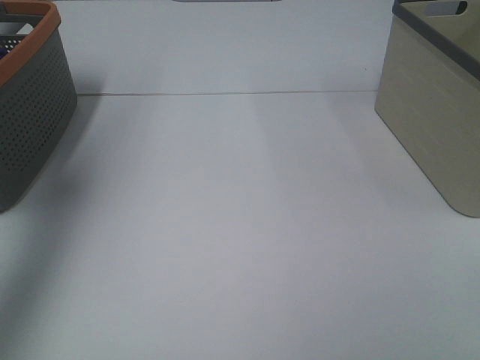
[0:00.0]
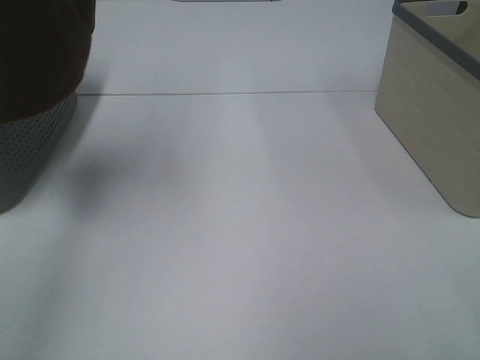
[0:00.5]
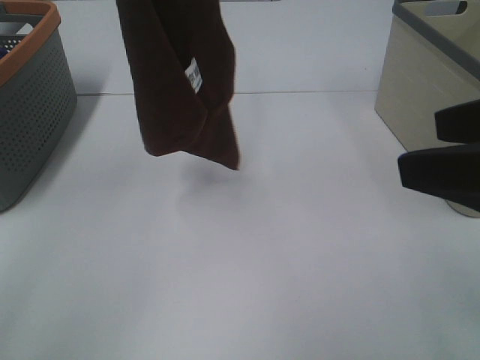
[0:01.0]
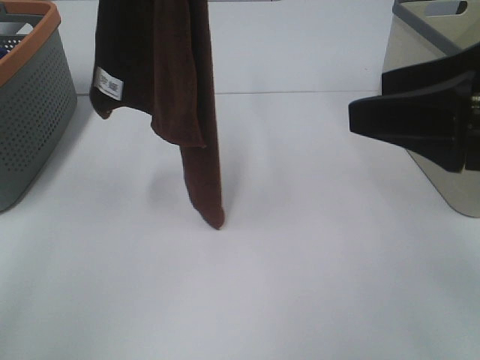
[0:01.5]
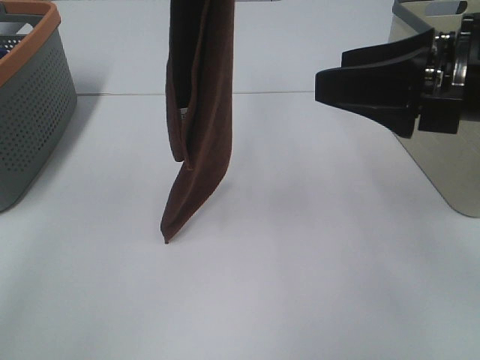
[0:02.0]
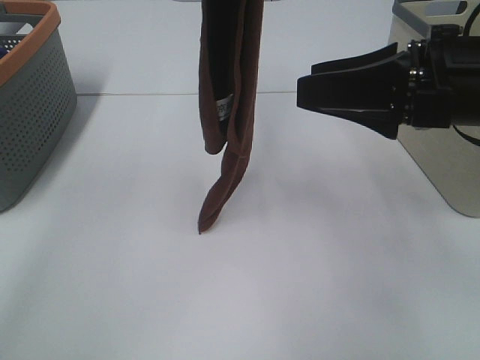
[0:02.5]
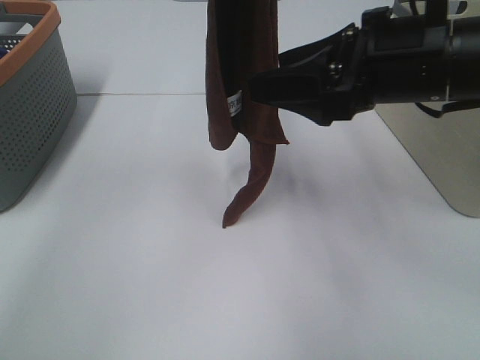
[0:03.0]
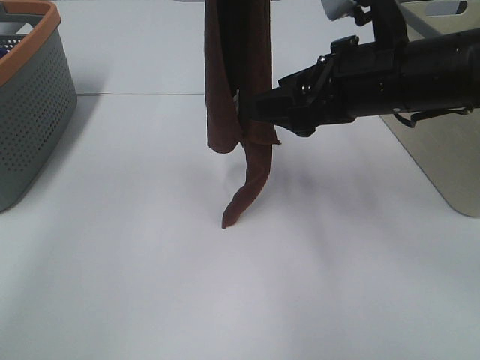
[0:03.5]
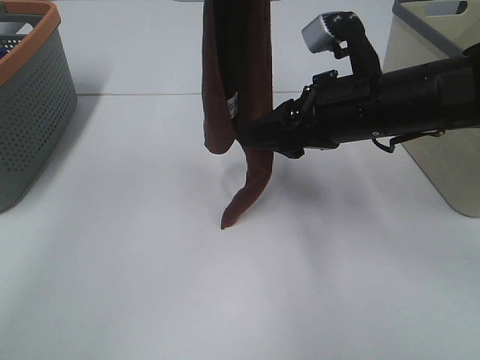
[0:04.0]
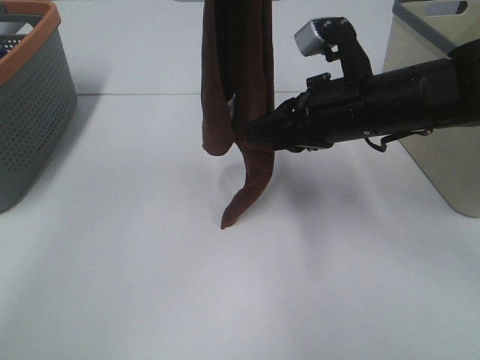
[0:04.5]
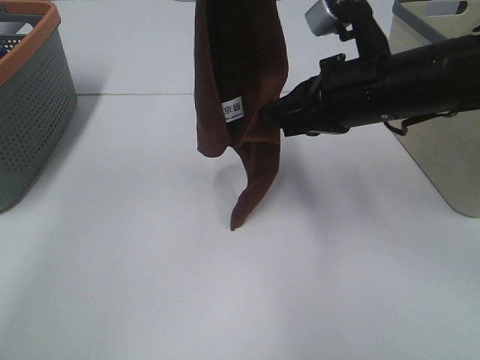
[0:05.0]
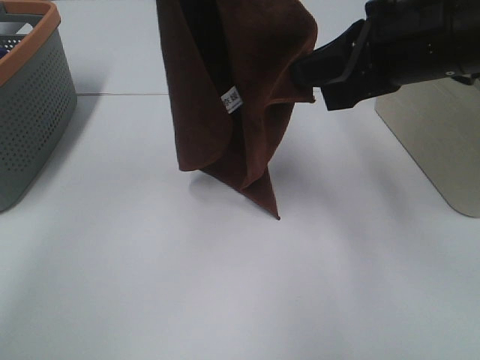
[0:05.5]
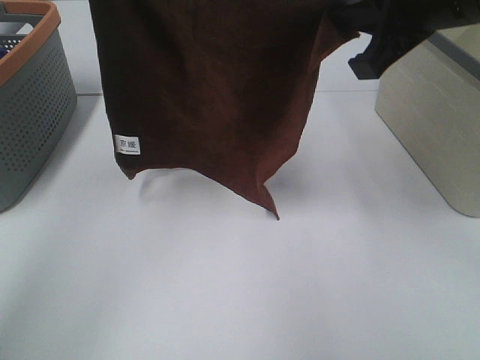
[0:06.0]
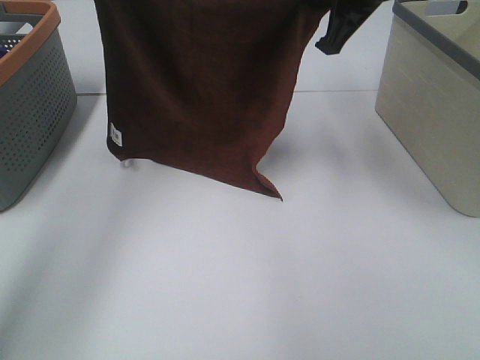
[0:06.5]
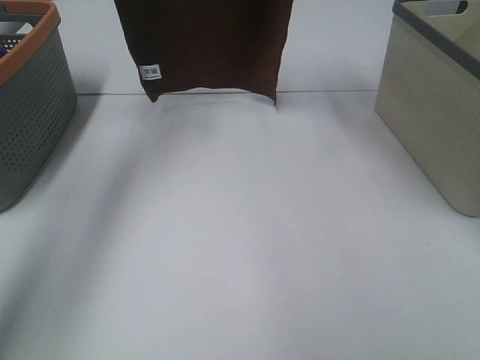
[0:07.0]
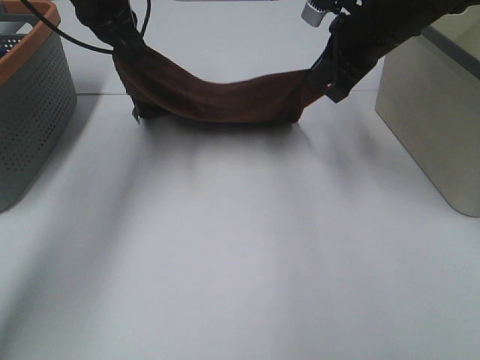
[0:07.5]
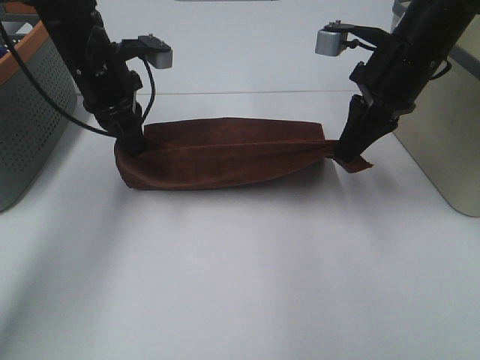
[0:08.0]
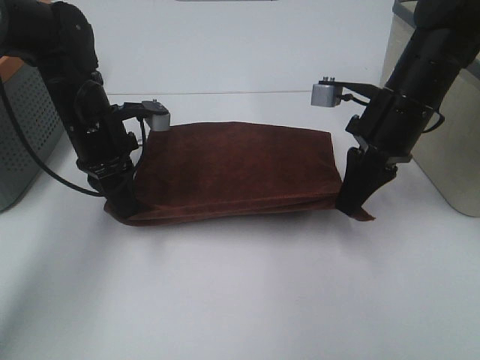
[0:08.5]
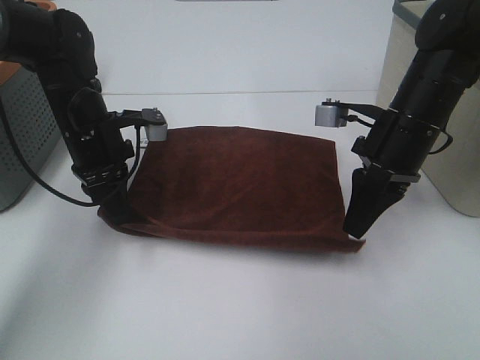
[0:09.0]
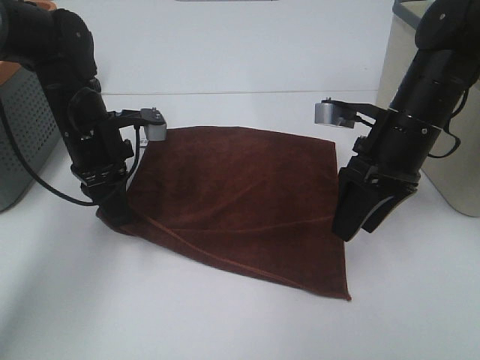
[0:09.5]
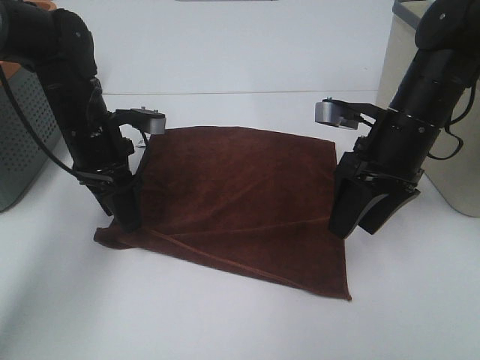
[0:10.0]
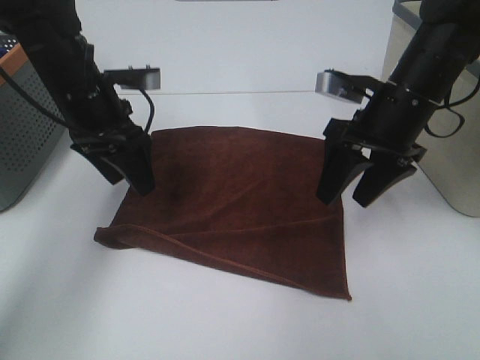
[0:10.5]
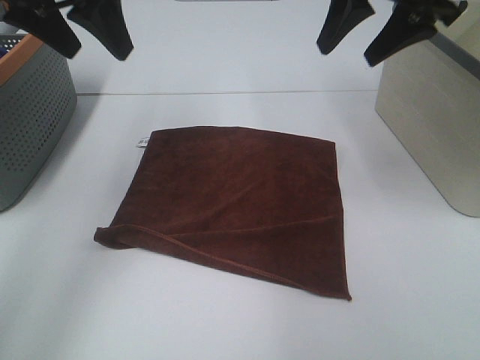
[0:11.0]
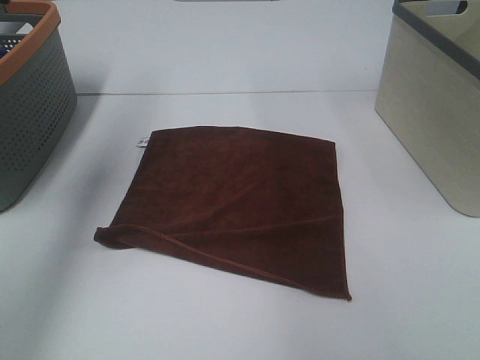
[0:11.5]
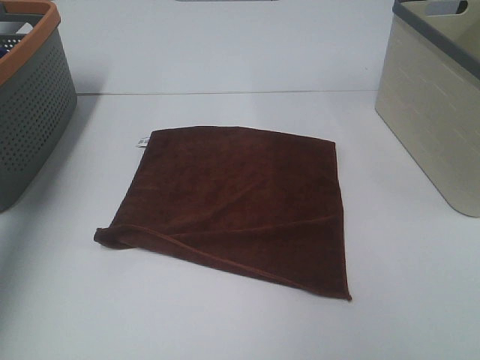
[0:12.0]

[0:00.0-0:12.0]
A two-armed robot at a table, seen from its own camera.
Task of the whole recording: Remove the towel and place it.
Step, 0:00.0 to 0:03.0: Right hand: grab a corner of the brown towel and straighten it.
Step, 0:03.5 to 0:05.0: Right hand: spread the brown towel flat on the table.
Step, 0:03.5 to 0:05.5: Left hand: spread the brown towel flat on the table.
0:00.0 to 0:02.0: The right gripper goes approximately 25 cm forward, while the left gripper moves to the right and downward, about 25 cm.
0:02.0 to 0:04.0: The right gripper is displaced forward, downward and to the left by about 10 cm.
0:04.0 to 0:06.0: The right gripper moves upward, approximately 15 cm, and closes; the left gripper goes roughly 5 cm to the left.
0:06.0 to 0:08.0: The right gripper is displaced downward and forward by some 15 cm. Meanwhile the left gripper shifts some 25 cm downward.
0:08.0 to 0:10.0: Both grippers move downward, roughly 5 cm. The left gripper opens its fingers, while the right gripper opens its fingers.
0:10.0 to 0:12.0: The right gripper shifts approximately 30 cm upward and to the right. The left gripper shifts approximately 35 cm upward and to the left.

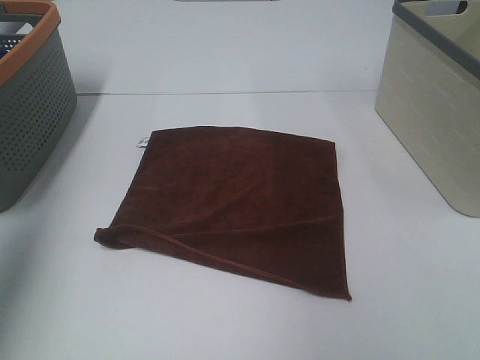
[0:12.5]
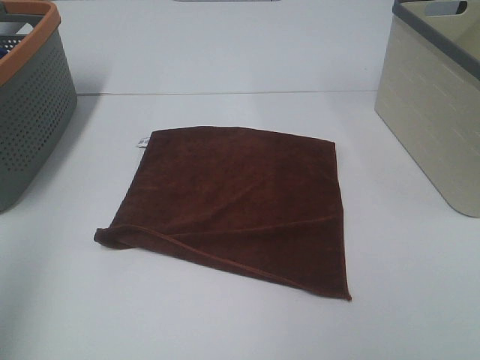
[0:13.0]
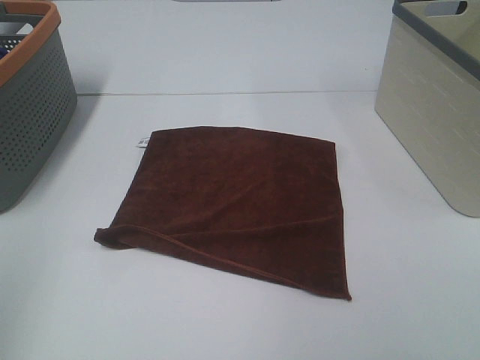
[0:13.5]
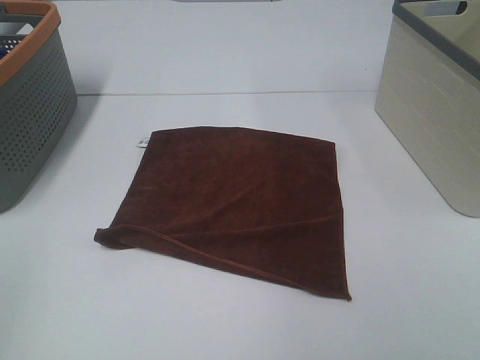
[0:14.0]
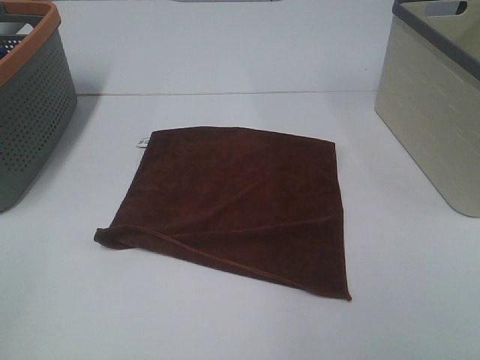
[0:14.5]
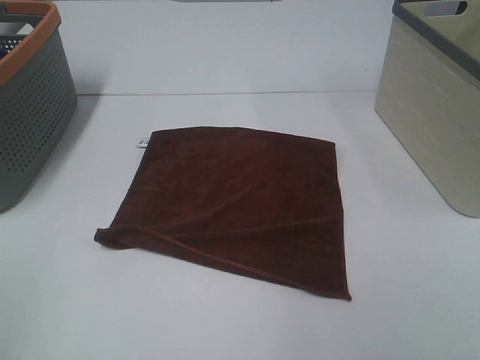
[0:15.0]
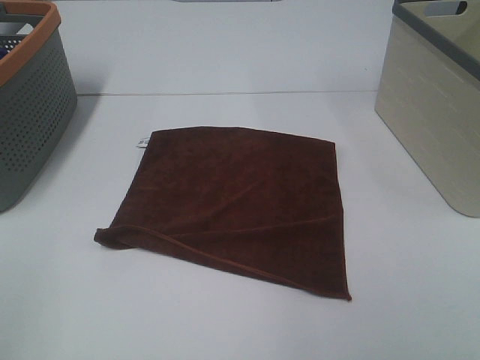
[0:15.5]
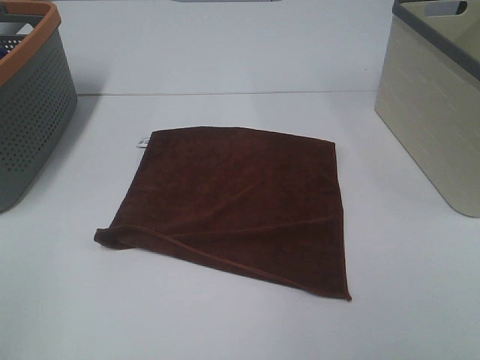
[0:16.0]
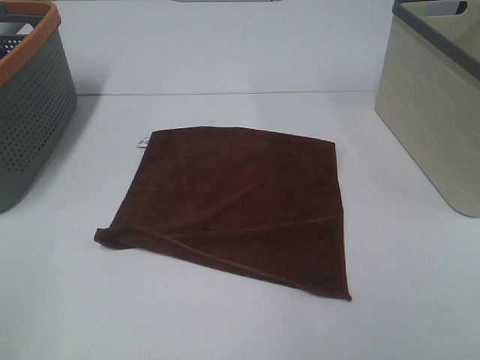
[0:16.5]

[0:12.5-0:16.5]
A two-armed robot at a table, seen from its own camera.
Task of the whole recording: Remove the towel and place it.
0:12.5 to 0:14.5: The left gripper heads backward and downward, covering about 25 cm.

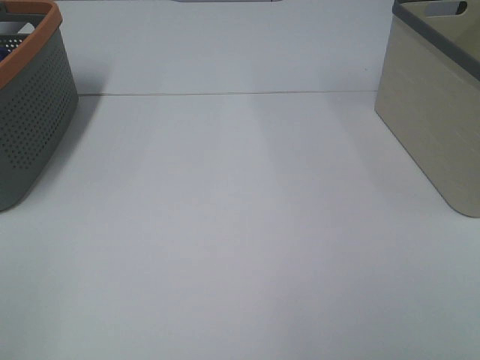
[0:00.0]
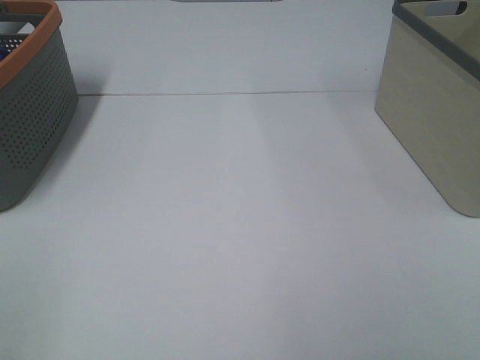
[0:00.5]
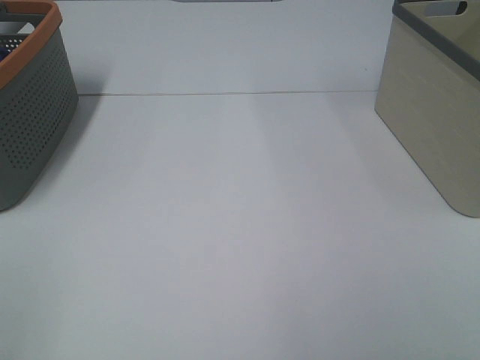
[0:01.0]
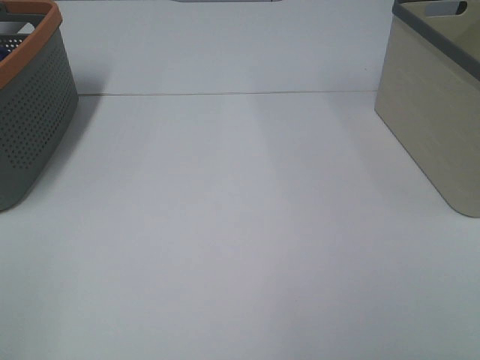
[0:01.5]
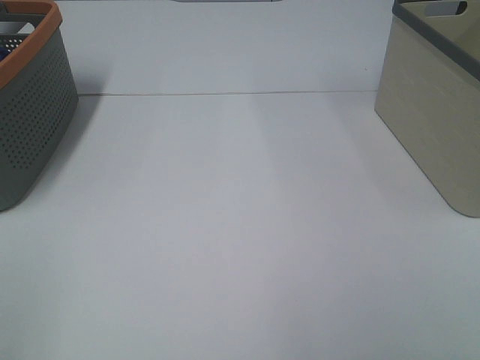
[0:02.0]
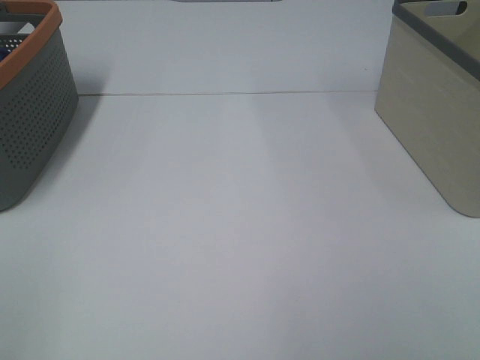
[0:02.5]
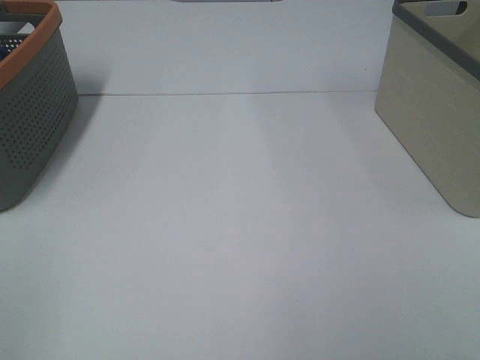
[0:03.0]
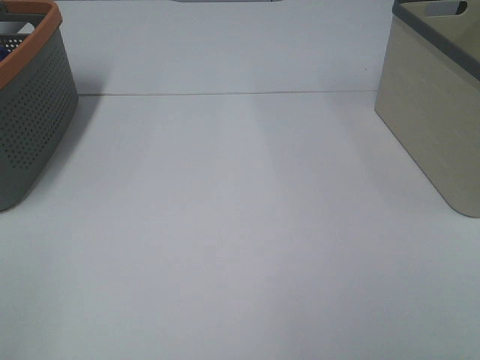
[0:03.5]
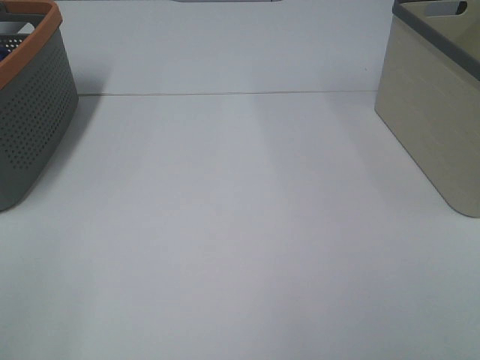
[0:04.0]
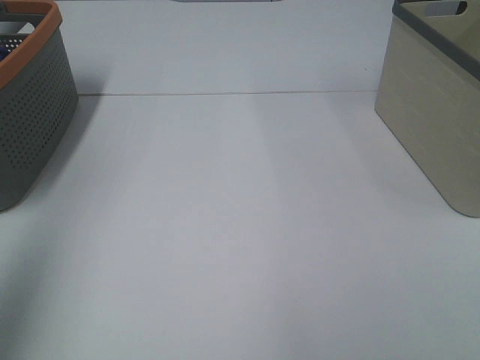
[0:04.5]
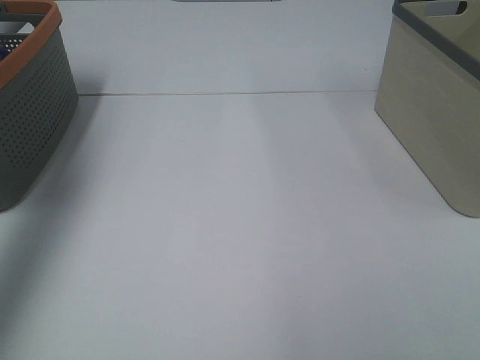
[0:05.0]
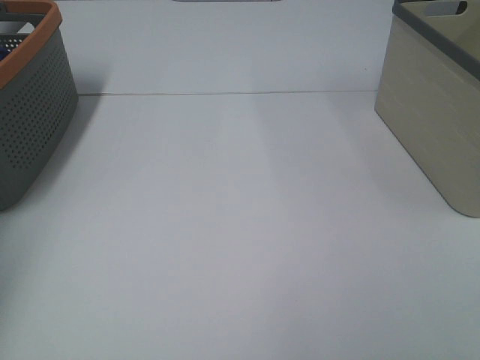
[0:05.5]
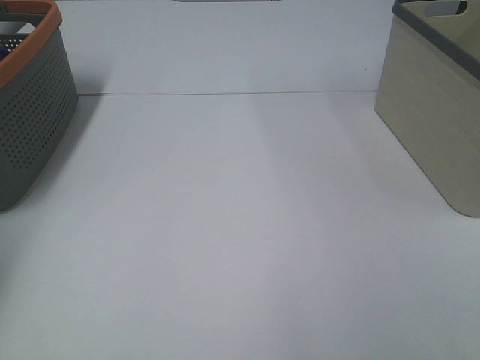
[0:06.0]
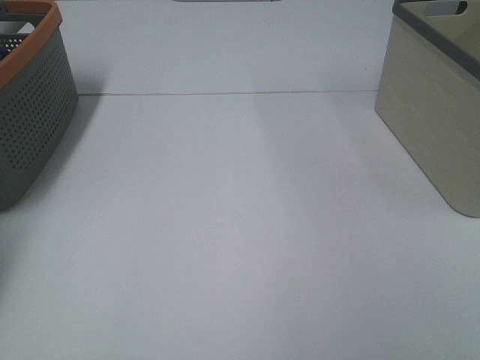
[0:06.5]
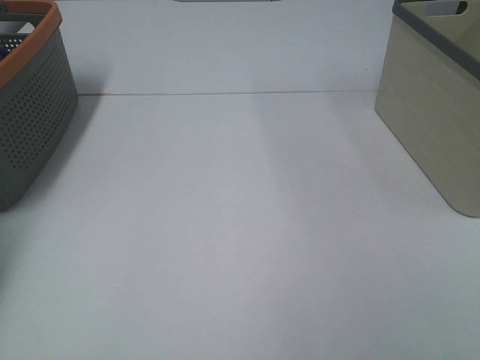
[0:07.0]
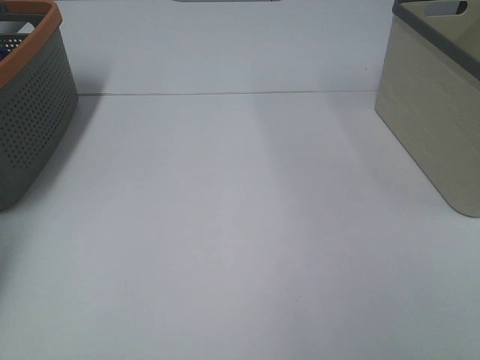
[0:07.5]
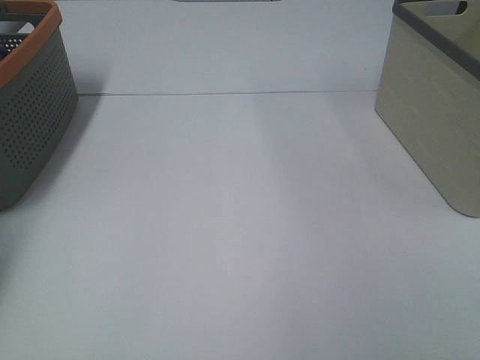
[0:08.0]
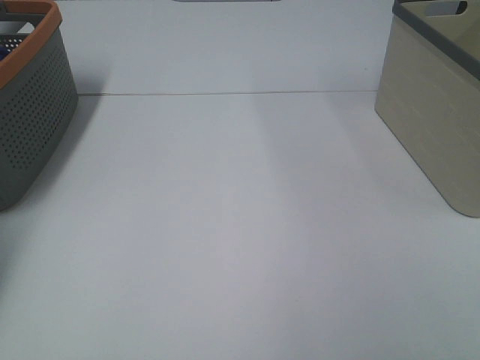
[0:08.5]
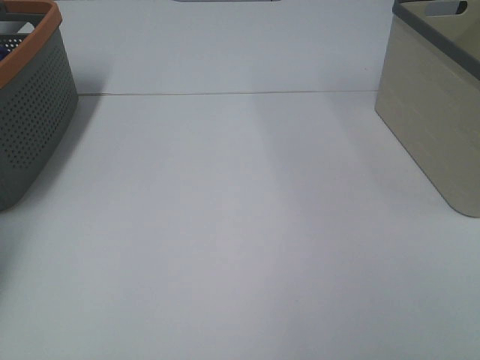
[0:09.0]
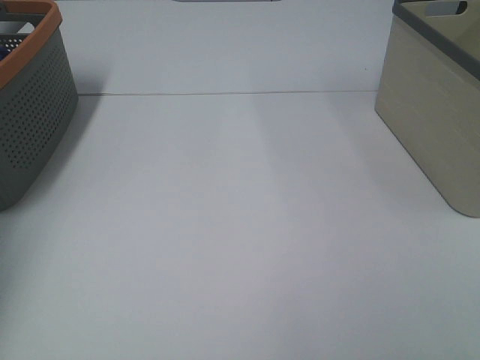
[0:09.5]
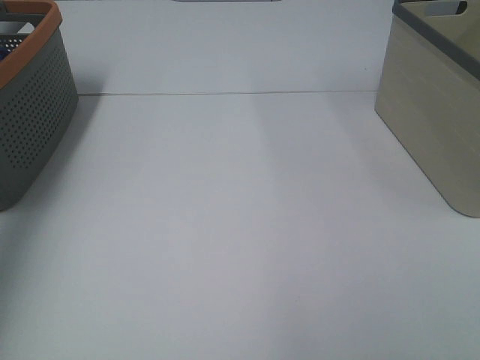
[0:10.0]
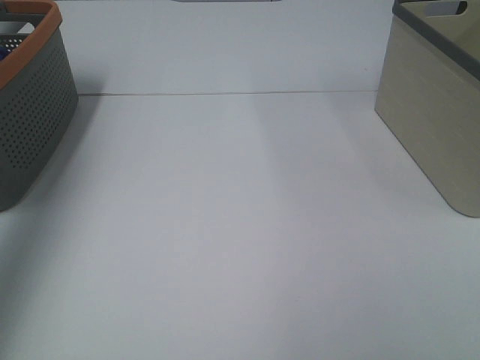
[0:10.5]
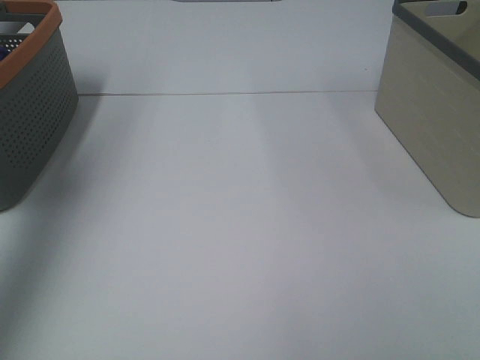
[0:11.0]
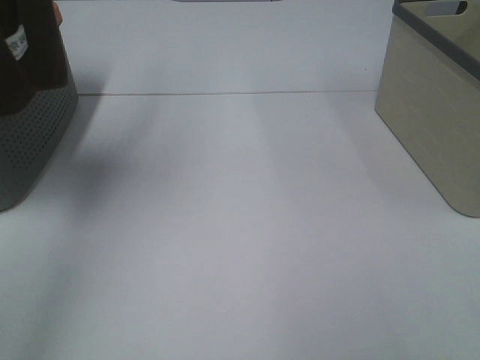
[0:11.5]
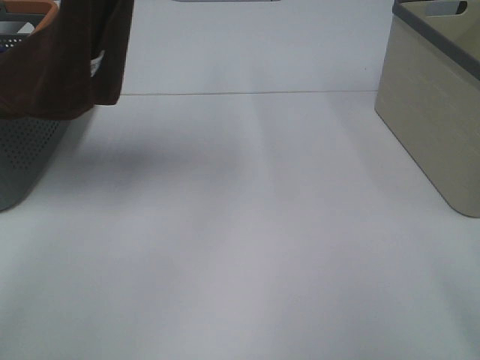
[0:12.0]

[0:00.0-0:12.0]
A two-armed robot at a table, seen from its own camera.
Task of the whole recording: Remove the towel and place it.
0:00.0 to 0:02.0: Both grippers stay put.
0:04.0 to 0:06.0: The left gripper goes approximately 40 cm forward.
0:08.0 to 0:10.0: The left gripper heads upward and backward, covering roughly 30 cm.
0:10.0 to 0:12.0: The left gripper heads to the right, covering about 25 cm. The right gripper shifts about 10 cm forward.
